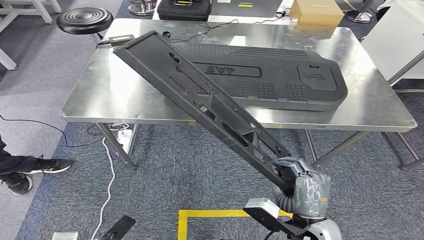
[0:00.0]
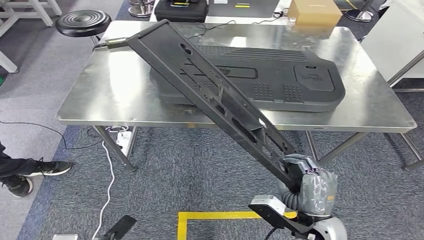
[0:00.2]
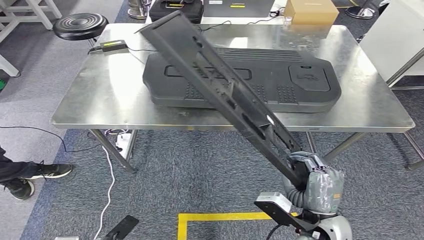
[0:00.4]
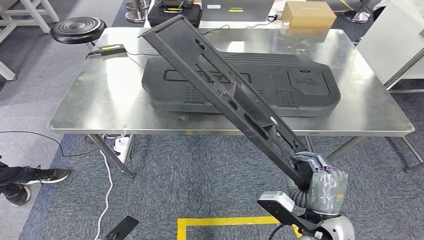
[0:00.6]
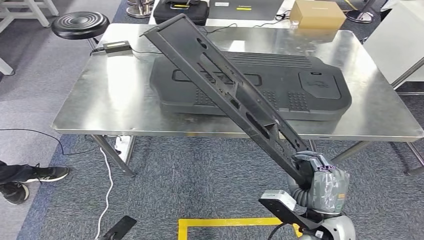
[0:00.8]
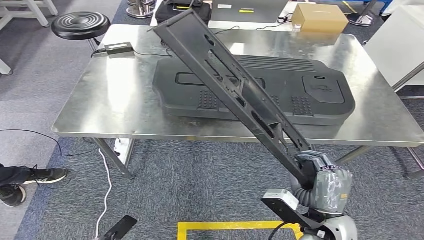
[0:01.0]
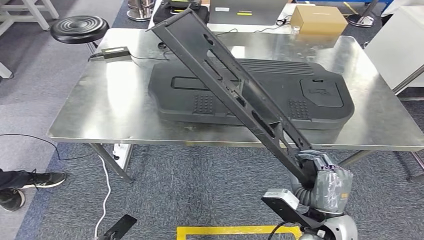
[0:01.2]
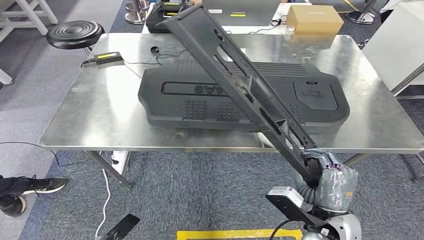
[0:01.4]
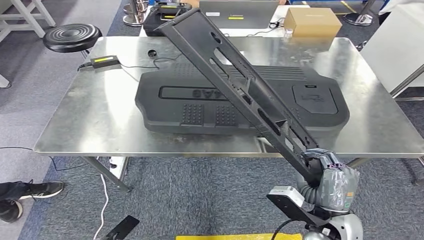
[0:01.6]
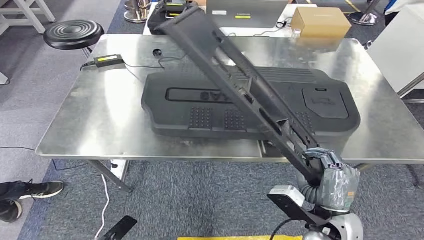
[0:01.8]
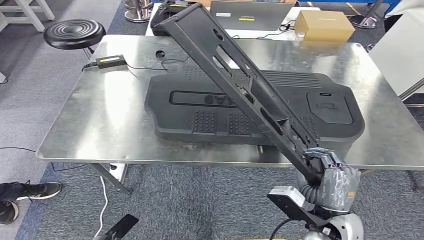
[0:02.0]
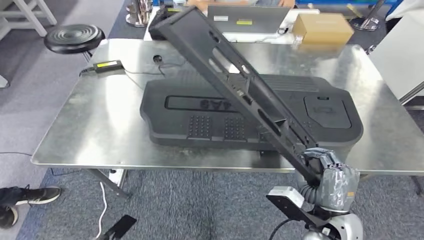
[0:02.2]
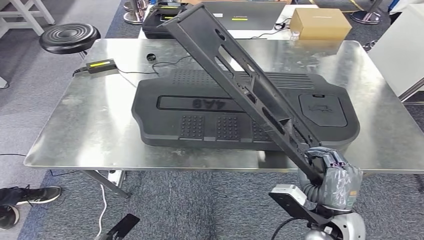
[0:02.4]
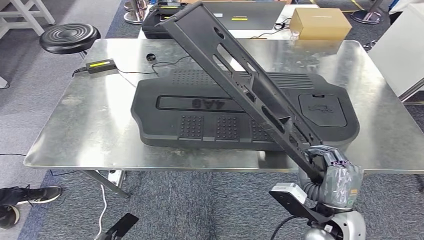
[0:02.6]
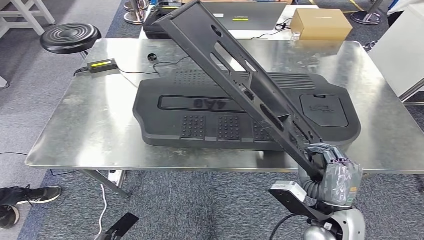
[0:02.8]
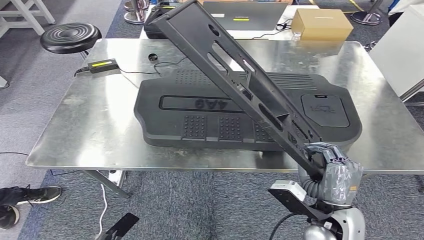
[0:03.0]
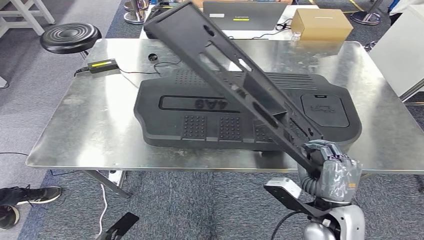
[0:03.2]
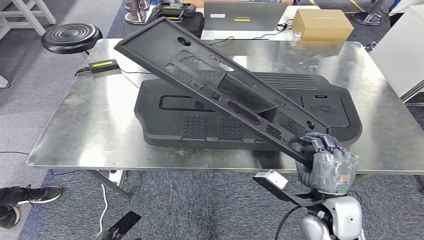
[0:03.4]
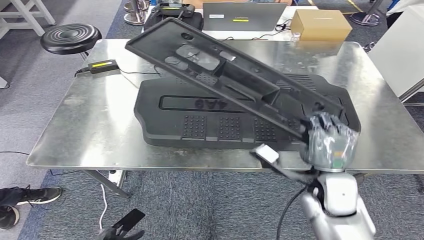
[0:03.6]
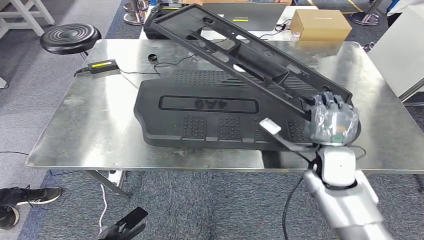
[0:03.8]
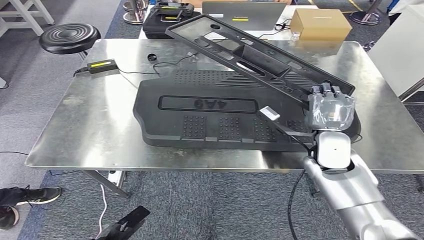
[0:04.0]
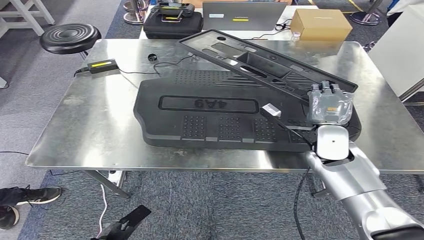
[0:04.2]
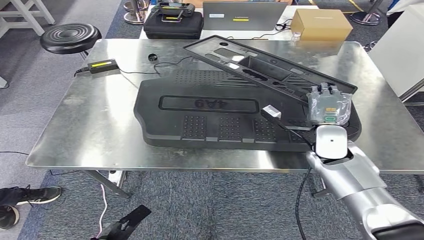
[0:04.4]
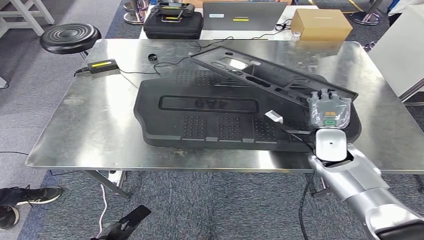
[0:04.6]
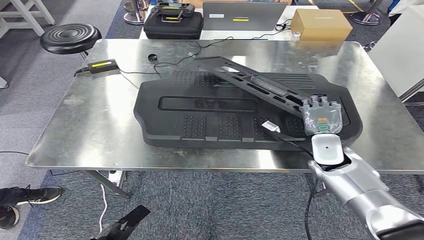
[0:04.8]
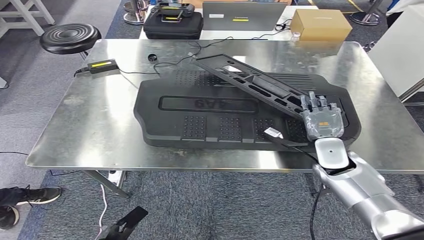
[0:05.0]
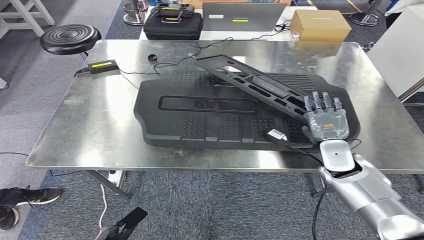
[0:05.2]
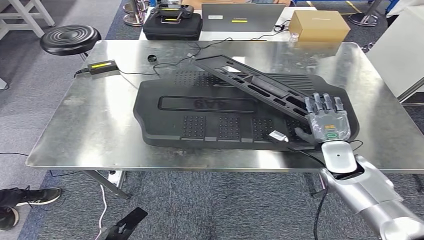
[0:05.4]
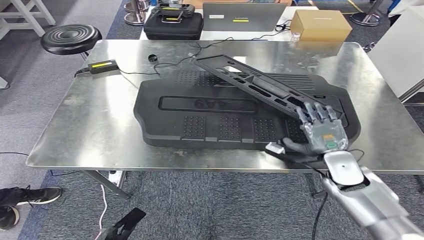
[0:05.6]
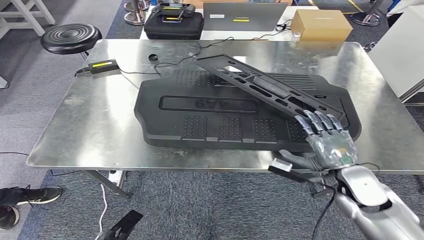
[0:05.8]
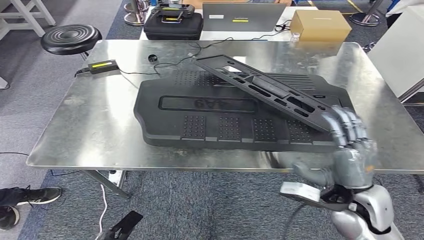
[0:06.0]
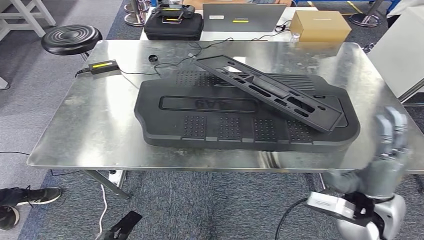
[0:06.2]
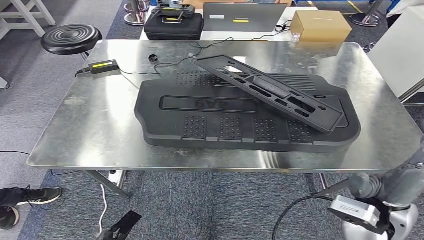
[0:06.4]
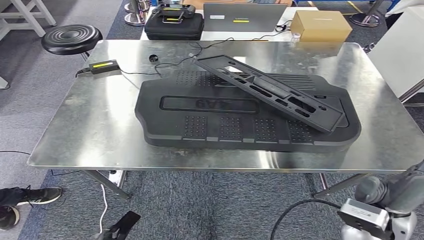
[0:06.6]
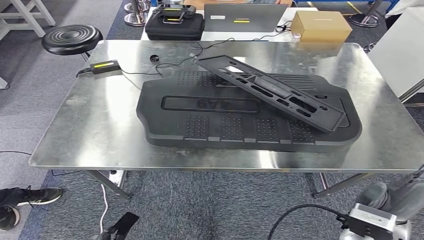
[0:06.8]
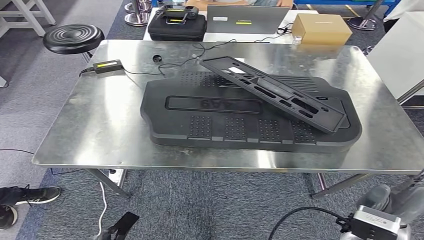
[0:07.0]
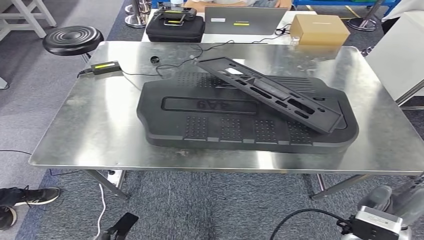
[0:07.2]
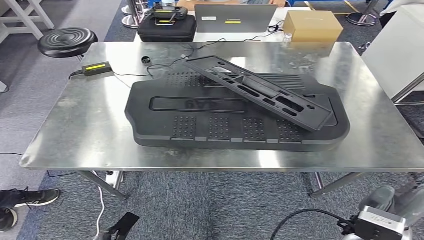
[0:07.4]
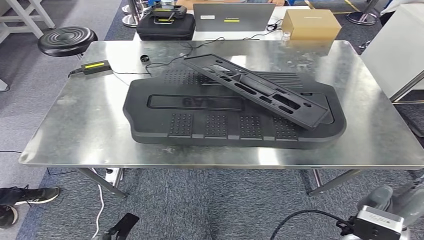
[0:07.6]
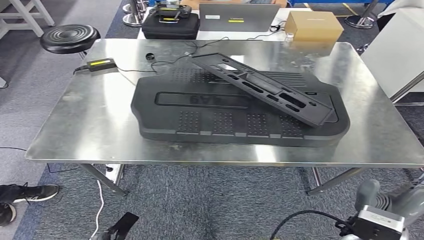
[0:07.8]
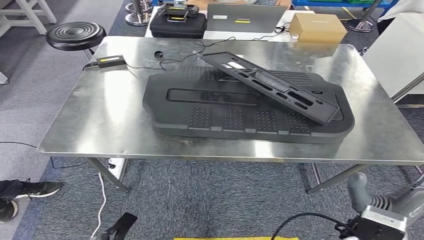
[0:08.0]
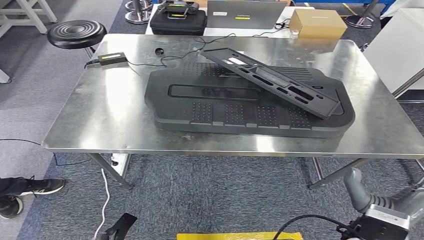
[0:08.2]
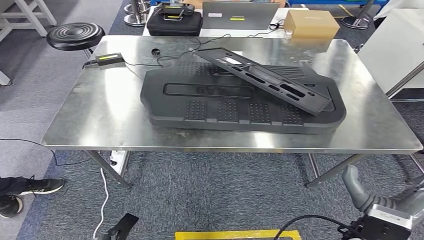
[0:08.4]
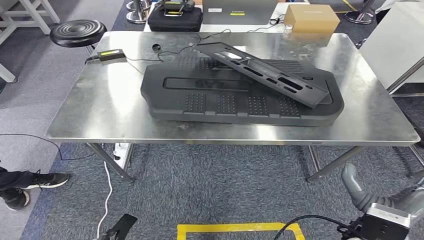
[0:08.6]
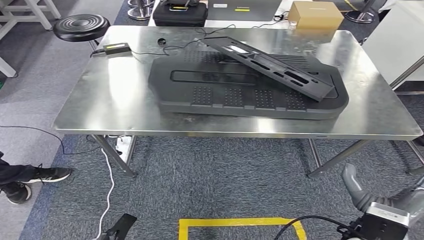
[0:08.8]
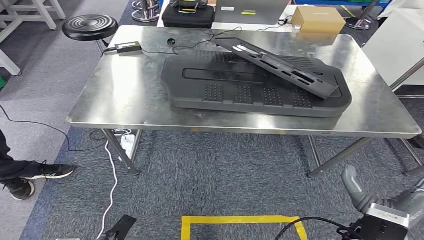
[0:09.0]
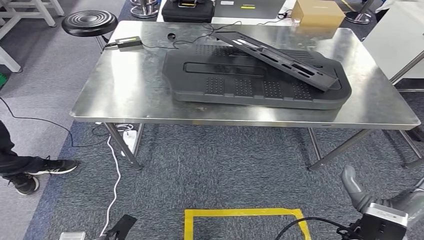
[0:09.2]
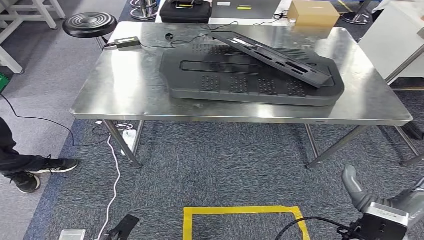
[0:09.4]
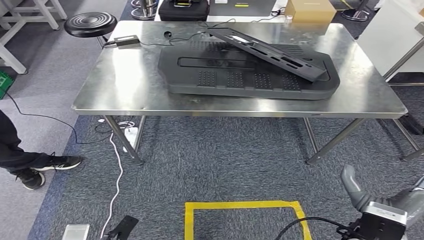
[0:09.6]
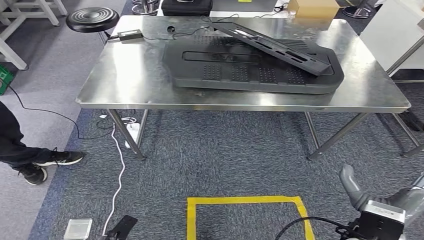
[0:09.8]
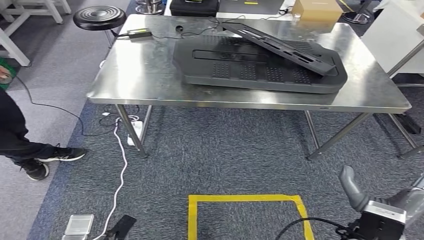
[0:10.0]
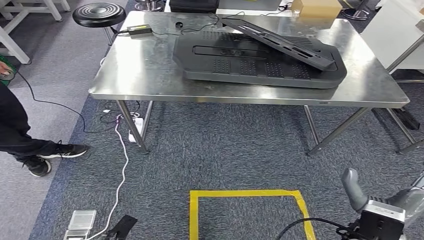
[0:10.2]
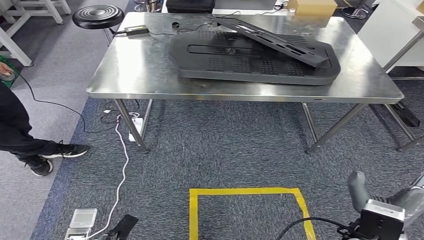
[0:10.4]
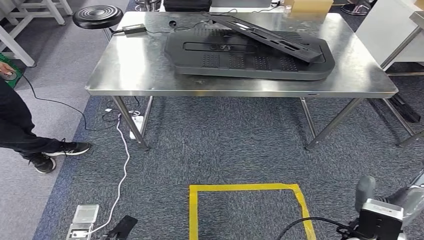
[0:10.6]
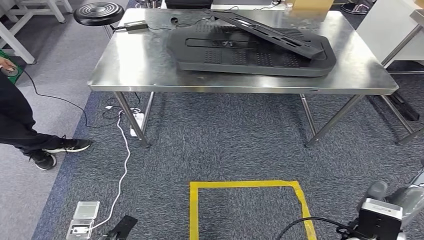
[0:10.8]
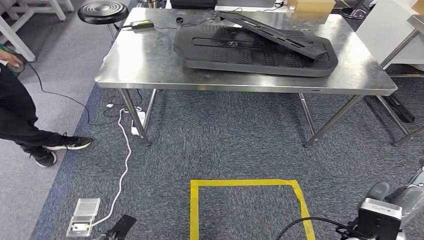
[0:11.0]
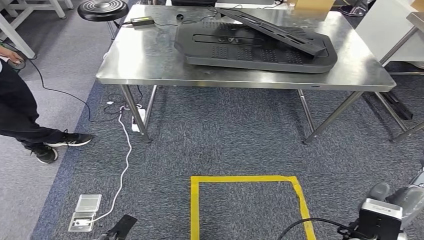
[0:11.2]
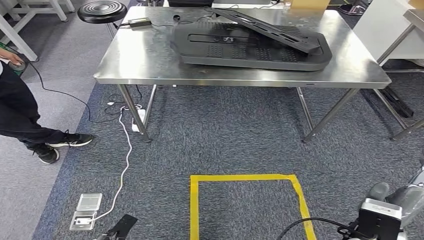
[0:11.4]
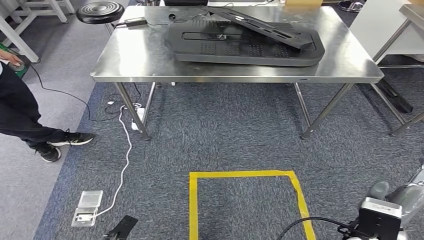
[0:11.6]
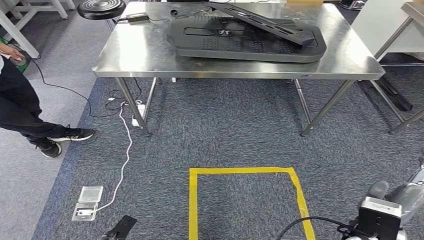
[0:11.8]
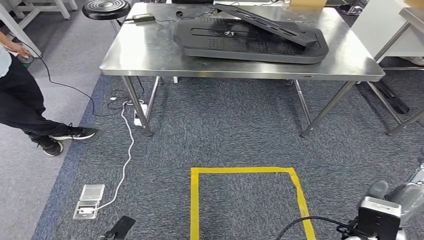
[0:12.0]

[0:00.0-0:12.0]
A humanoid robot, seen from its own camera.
Step, 0:00.0 to 0:02.2: Move the large material to the workbench.
Step, 0:02.6 to 0:06.0: Insert the large material into the corresponding slot on the workbench.
0:03.0 to 0:04.4: The right hand goes approximately 20 cm forward.
0:04.4 to 0:06.0: The right hand shifts roughly 15 cm backward.

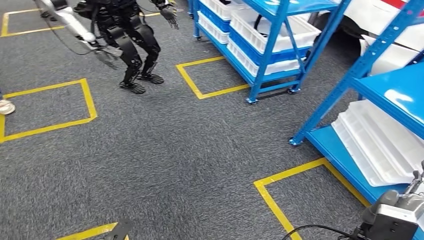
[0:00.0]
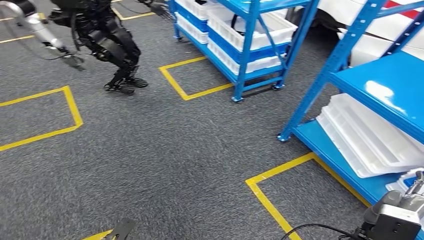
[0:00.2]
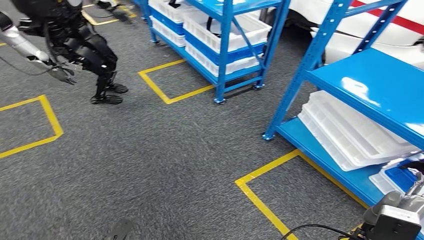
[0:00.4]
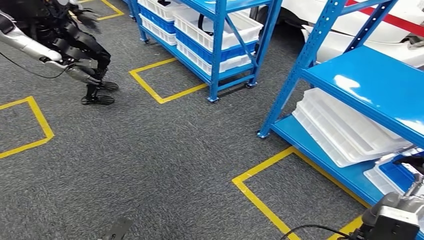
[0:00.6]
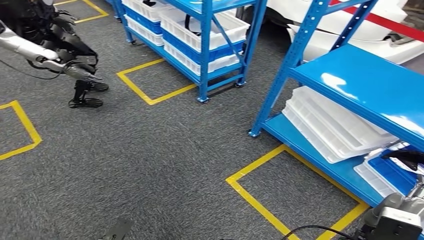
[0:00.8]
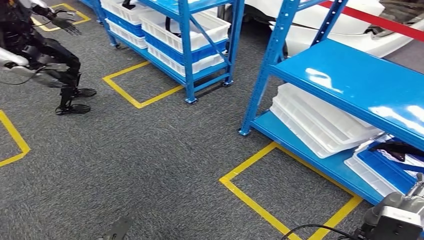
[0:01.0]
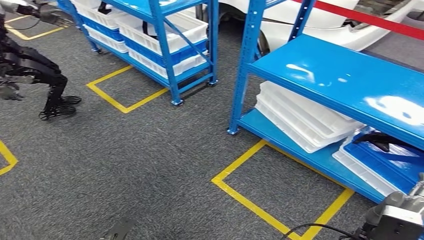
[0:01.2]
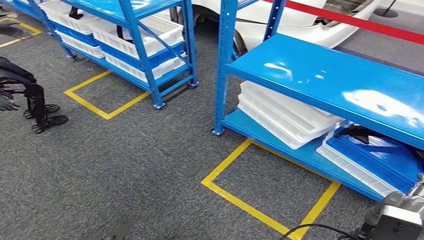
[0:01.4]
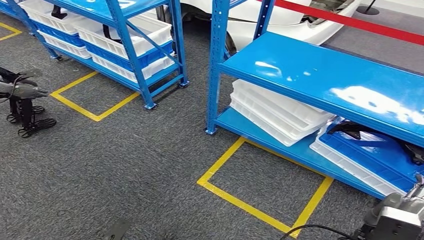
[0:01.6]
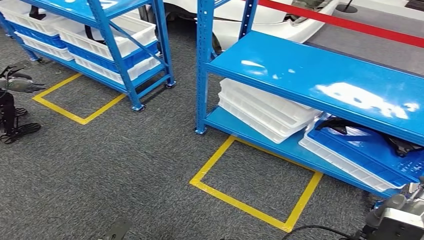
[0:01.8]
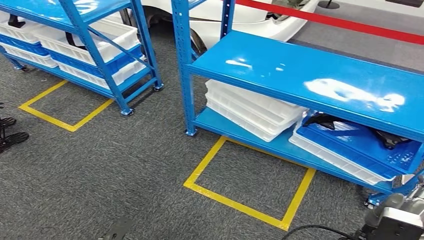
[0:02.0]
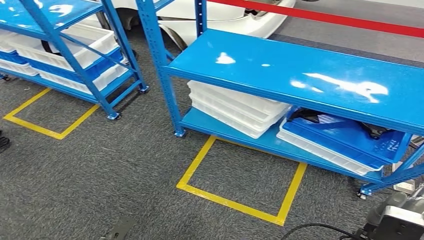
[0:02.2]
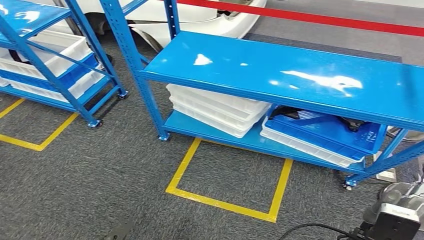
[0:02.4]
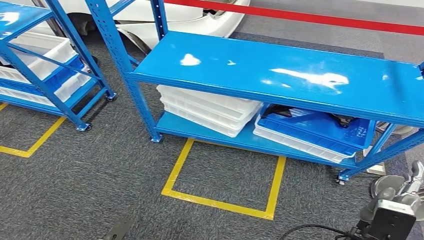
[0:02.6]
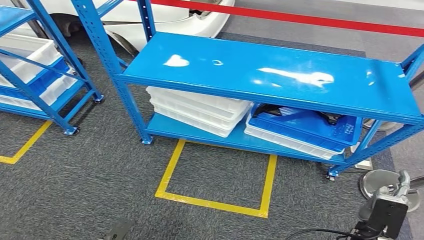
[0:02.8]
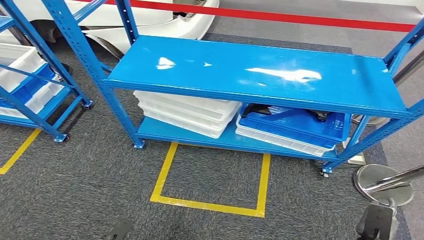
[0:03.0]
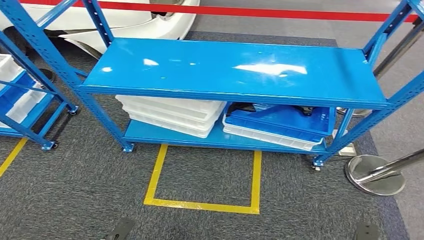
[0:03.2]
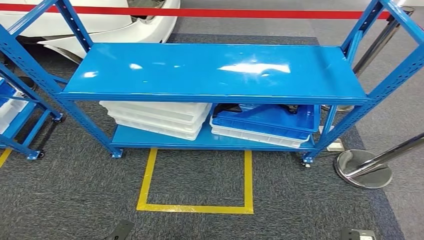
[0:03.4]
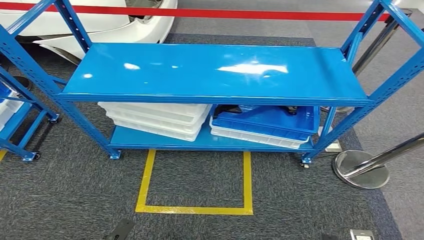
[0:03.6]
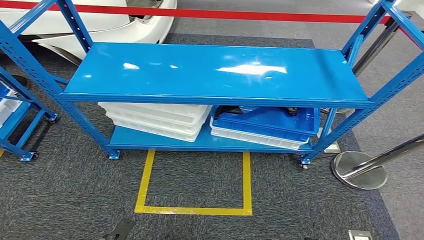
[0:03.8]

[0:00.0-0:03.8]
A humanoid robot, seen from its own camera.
Step, 0:00.0 to 0:03.8: Return to the initial position at the shelf.
